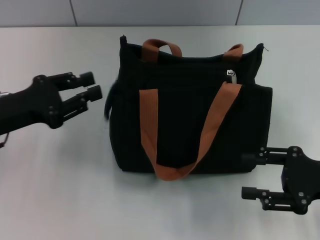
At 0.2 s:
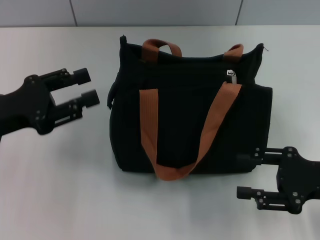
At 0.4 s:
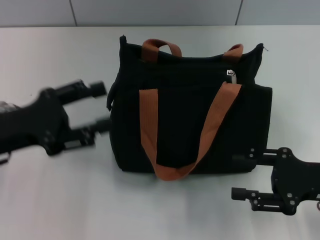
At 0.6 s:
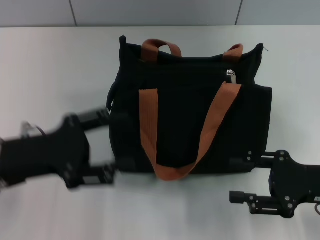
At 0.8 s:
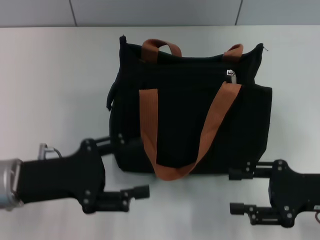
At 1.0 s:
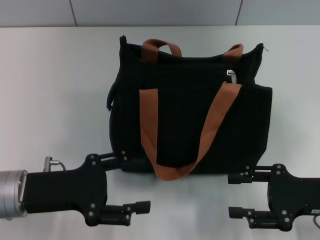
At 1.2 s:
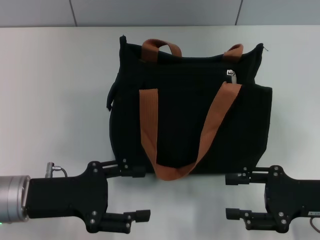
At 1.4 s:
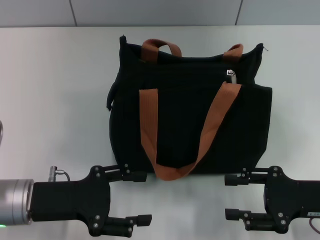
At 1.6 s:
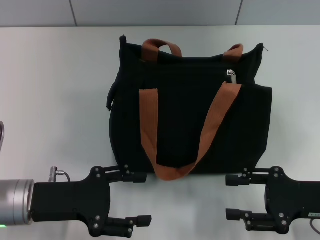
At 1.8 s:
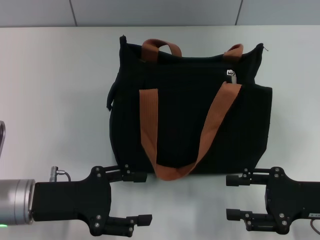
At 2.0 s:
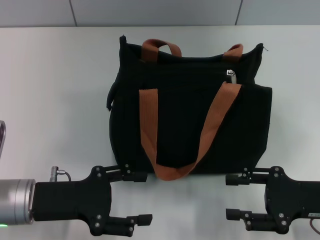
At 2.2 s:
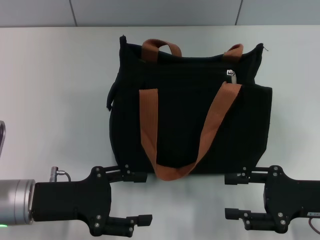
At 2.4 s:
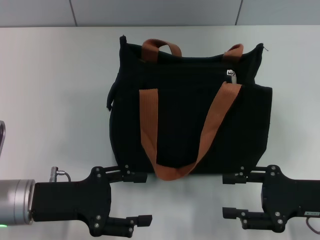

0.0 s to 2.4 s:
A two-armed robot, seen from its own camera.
0.0 to 1.2 s: The left gripper heads backward, covering approximately 5 cm, and opens its fingers.
1.2 to 2.4 s: Neither gripper changes place.

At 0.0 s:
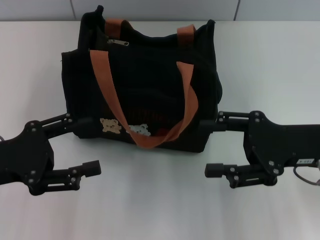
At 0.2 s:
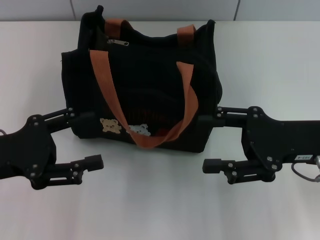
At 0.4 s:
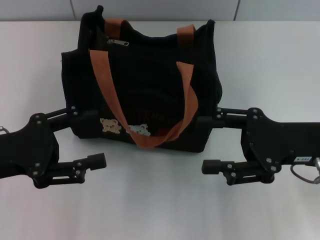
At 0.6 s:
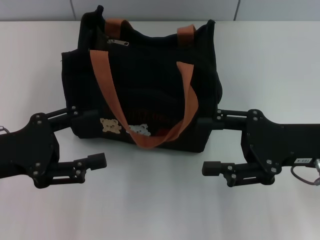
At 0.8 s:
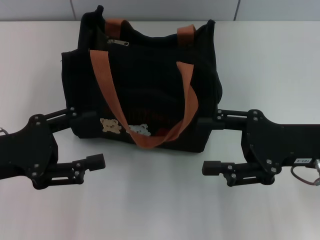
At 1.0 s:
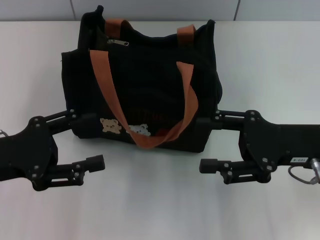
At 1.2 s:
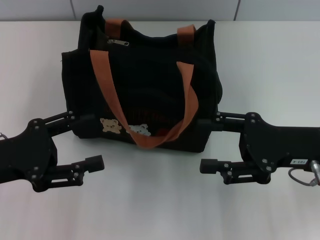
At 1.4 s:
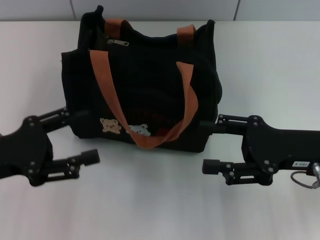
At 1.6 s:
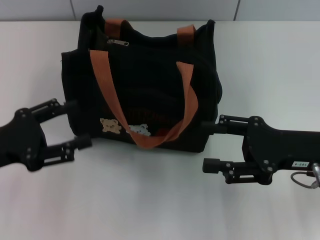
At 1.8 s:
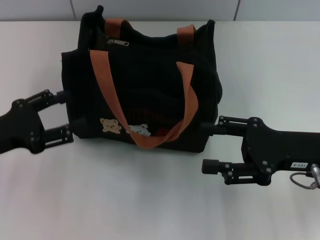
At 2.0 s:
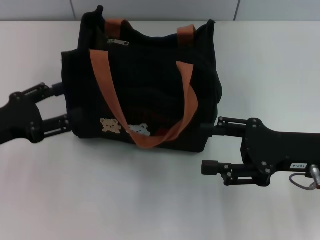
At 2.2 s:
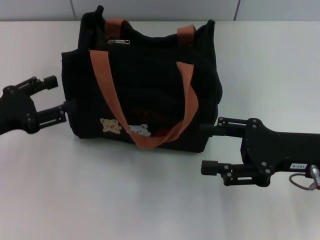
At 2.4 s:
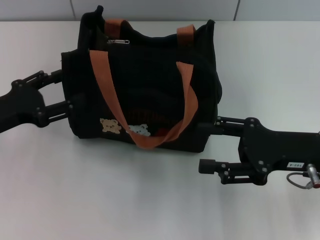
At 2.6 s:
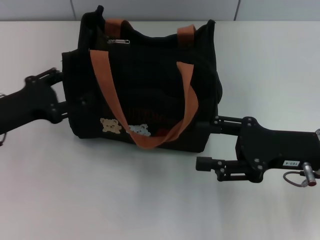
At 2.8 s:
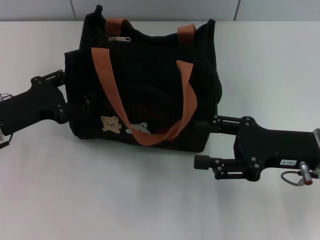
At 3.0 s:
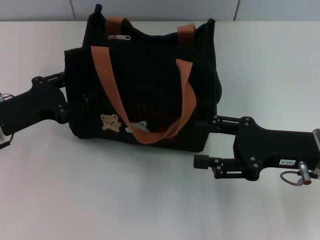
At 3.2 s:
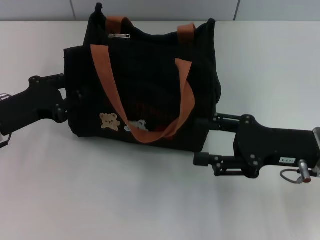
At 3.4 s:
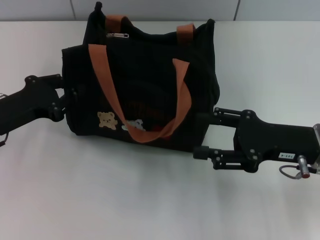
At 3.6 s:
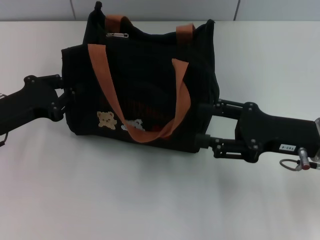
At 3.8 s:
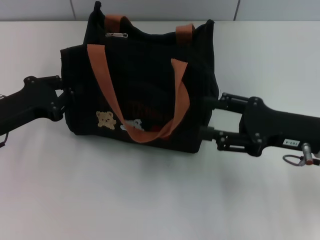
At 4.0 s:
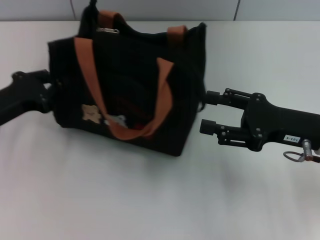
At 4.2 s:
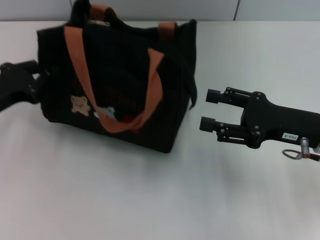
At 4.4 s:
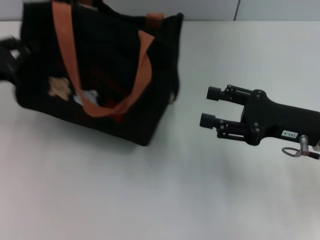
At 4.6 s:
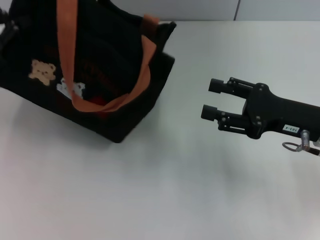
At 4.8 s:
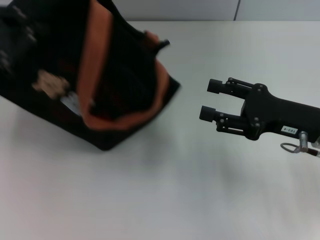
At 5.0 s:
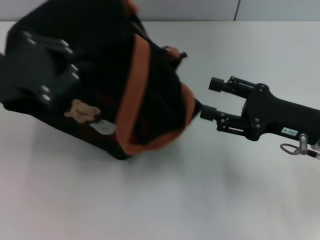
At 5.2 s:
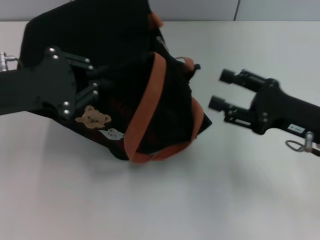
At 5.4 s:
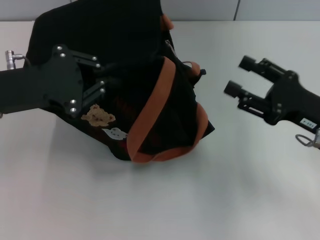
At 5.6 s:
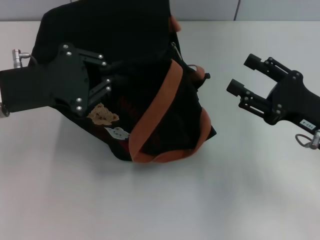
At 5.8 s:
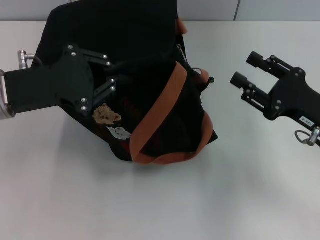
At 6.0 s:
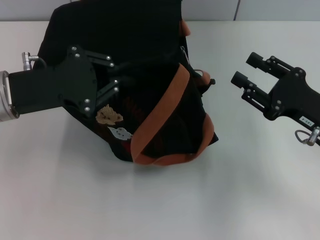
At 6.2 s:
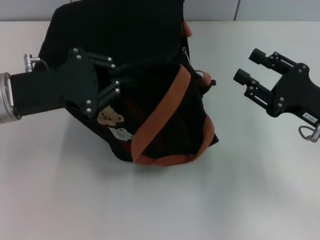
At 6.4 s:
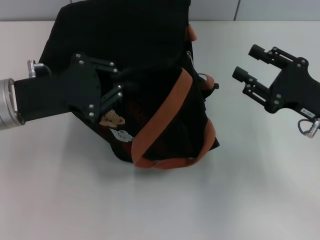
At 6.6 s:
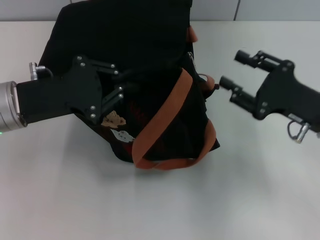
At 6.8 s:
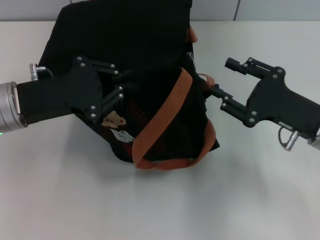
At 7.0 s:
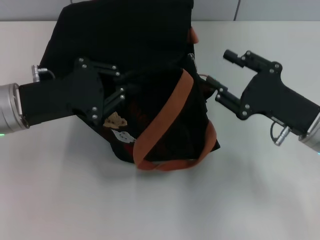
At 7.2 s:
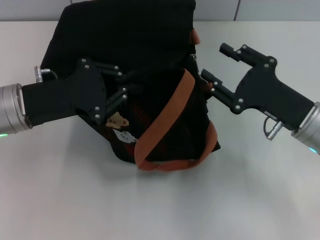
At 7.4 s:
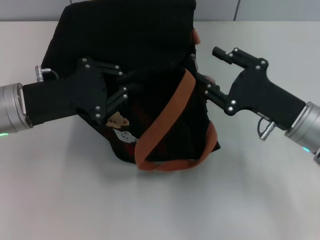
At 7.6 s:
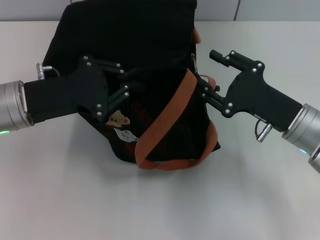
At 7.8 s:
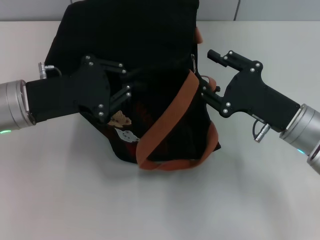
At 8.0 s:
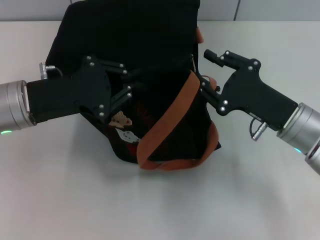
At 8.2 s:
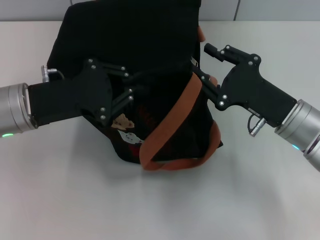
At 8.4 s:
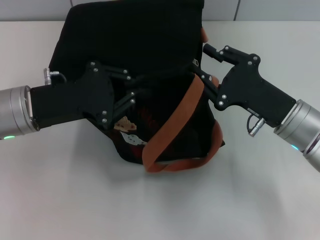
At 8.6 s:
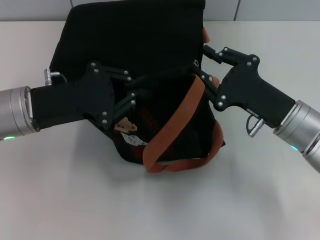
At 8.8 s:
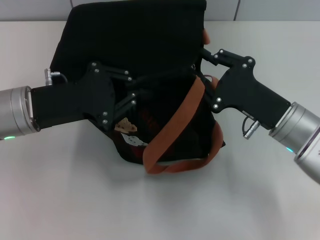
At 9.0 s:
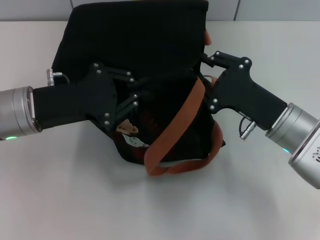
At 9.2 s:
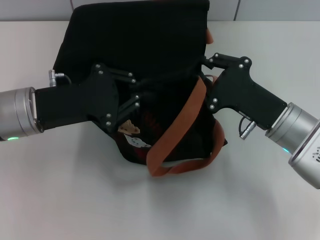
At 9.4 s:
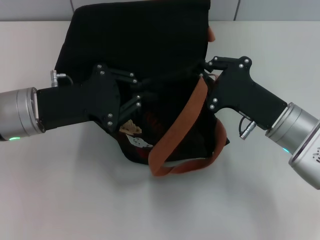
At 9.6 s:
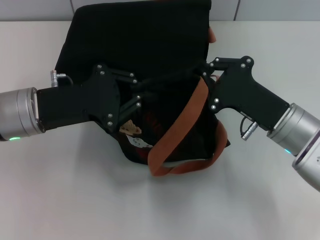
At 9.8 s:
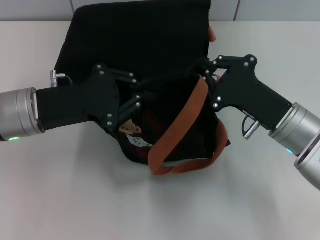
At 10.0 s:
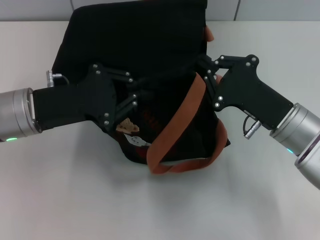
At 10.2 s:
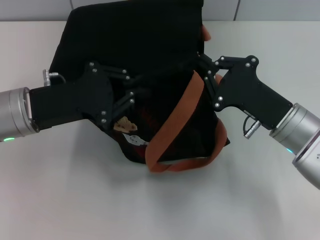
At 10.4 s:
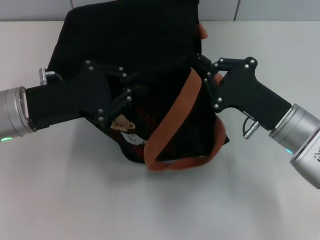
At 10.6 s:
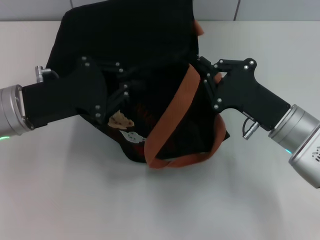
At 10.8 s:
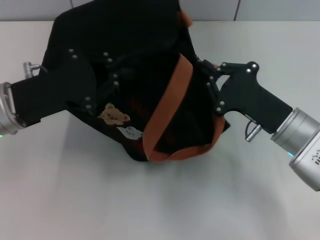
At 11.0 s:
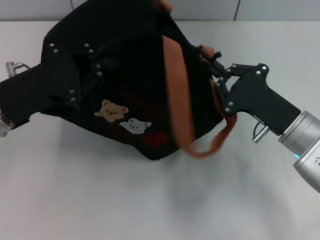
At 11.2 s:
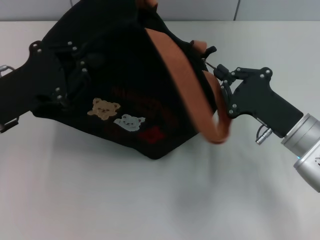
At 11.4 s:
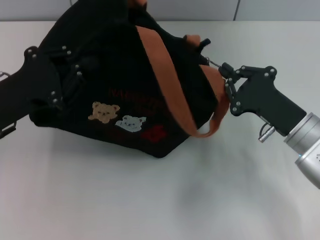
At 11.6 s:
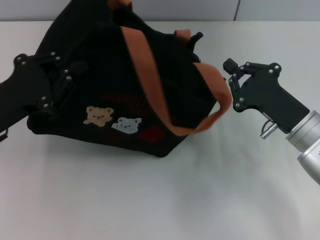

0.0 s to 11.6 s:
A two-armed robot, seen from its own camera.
0.0 to 1.4 s: There are only small adjustments of the grippers.
1.4 to 2.8 s: The left gripper goes about 5 cm forward.
2.8 to 4.4 s: The left gripper changes place by approximately 5 cm, and closes up.
4.4 to 5.8 s: The left gripper goes about 10 cm to the right.
7.2 to 8.8 s: The grippers move only a little.
8.8 to 10.2 s: The right gripper closes.
10.2 to 11.6 s: The left gripper shifts some 5 cm to the left.

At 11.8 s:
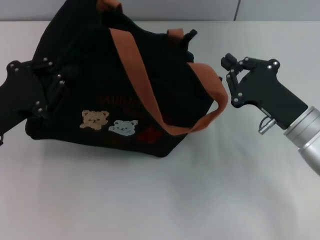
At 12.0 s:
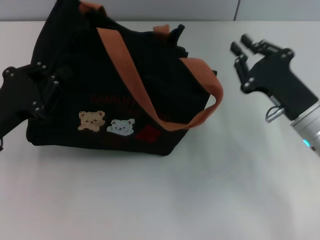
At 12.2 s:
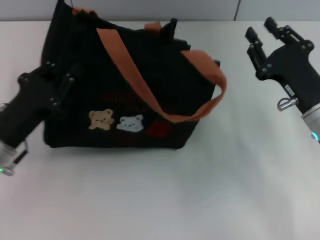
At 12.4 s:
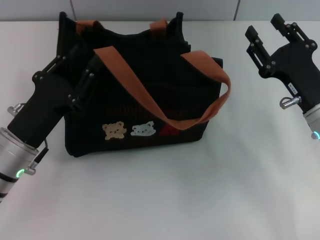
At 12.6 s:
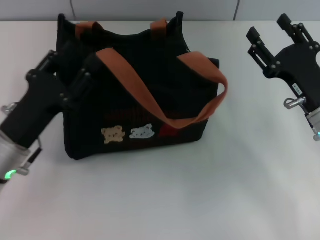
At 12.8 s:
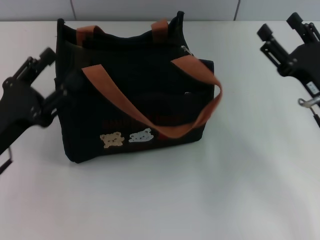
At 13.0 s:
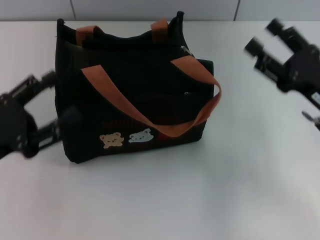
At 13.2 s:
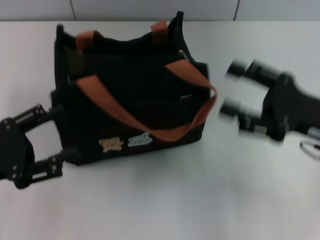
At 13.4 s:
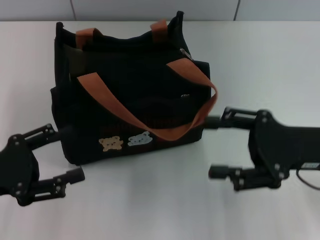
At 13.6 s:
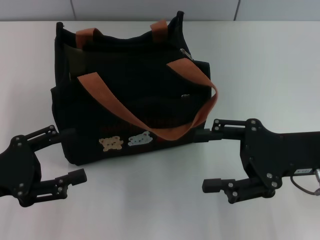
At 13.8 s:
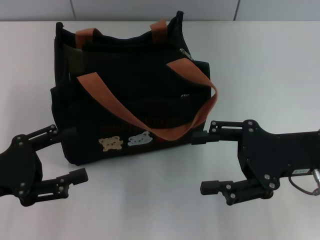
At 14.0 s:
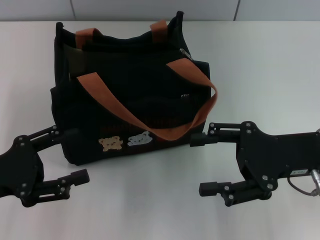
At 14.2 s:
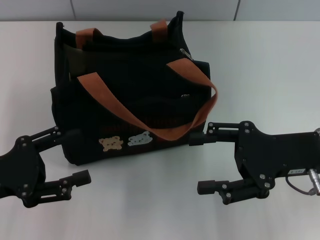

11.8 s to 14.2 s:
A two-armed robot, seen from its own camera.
Step, 12.0 to 12.6 s: Grab the bag with your left hand.
11.8 to 13.0 s: The right gripper moves approximately 5 cm, and opens up. Meanwhile the left gripper opens.
